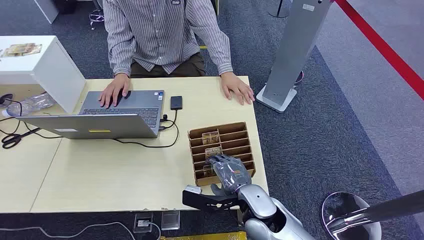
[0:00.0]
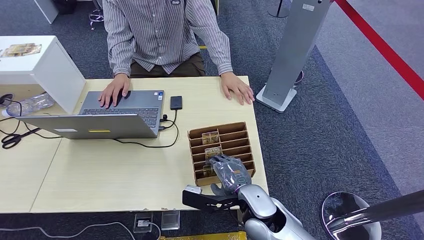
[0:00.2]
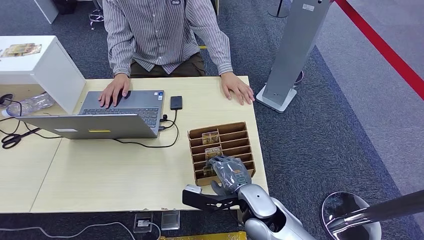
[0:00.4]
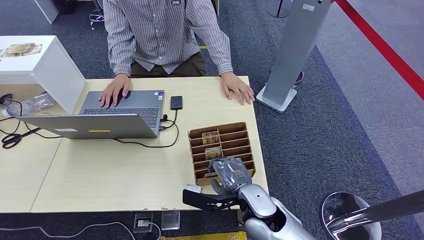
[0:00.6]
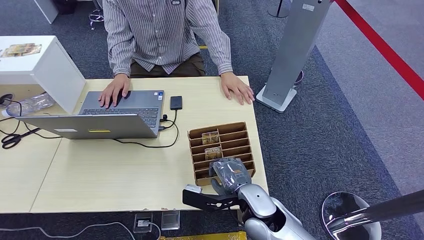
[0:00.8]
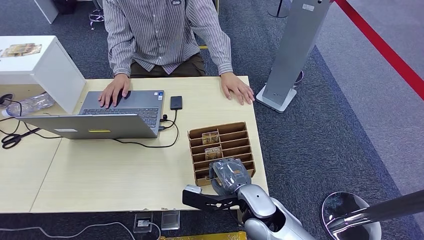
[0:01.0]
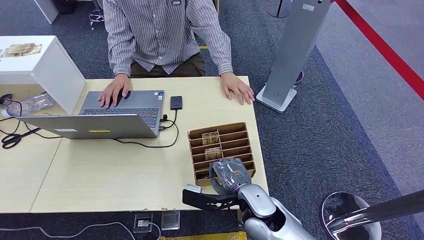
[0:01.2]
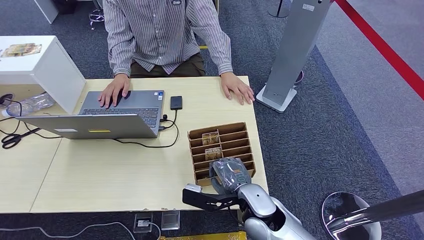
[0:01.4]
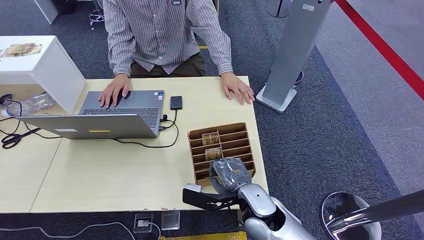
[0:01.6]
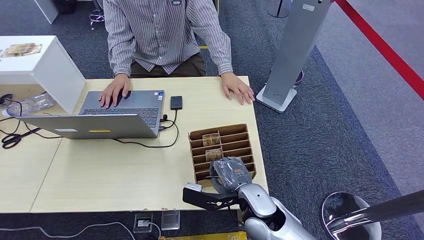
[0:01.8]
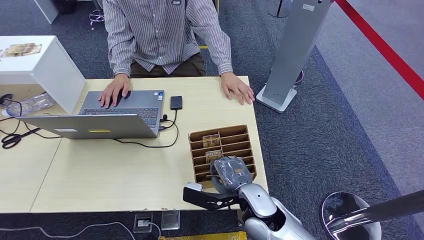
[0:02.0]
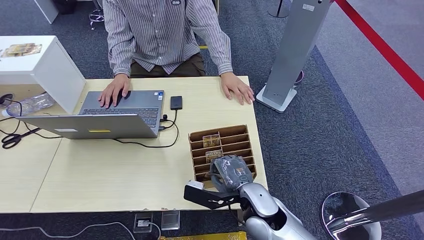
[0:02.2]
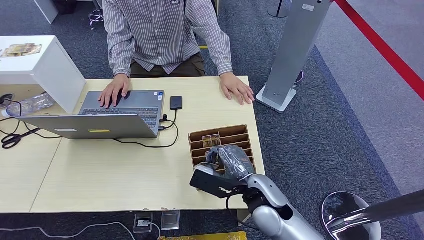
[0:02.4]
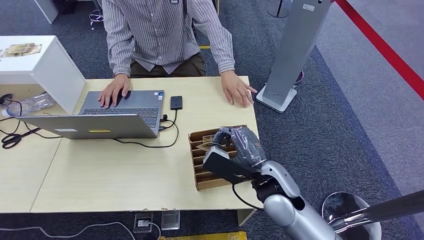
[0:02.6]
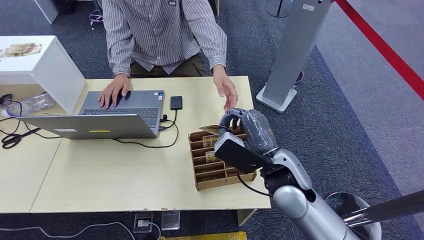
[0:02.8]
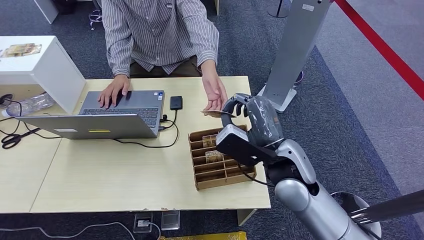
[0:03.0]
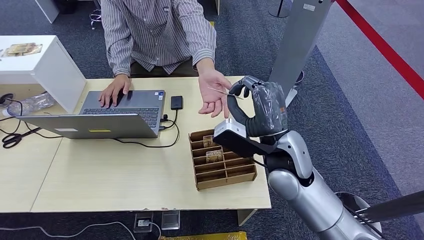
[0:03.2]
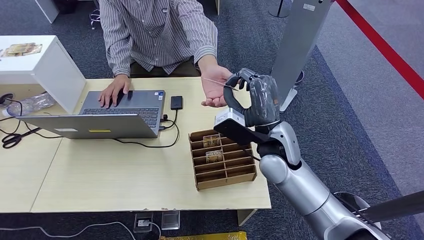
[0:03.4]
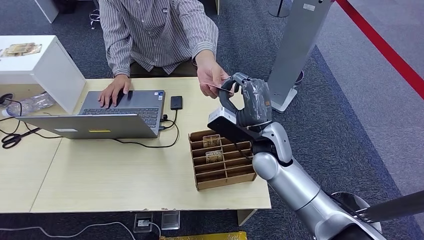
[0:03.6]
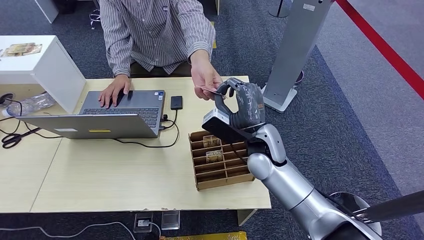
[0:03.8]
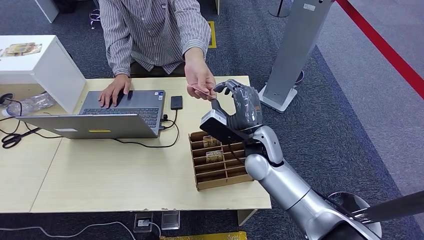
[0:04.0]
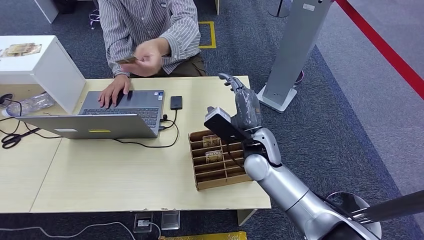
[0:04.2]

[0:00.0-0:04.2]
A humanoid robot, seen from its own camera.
Step, 0:00.0 to 0:02.6: Pick up the key card from the card box.
Step, 0:03.4 to 0:04.2: Hand the key card to the target.
0:01.4 to 0:02.8: The right hand moves upward, some 10 cm.
0:02.8 to 0:04.2: The right hand heads forward, covering approximately 10 cm.

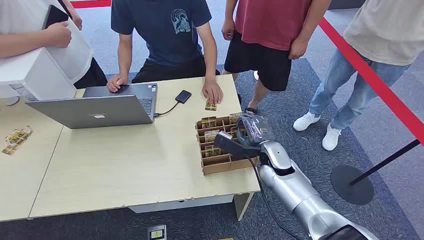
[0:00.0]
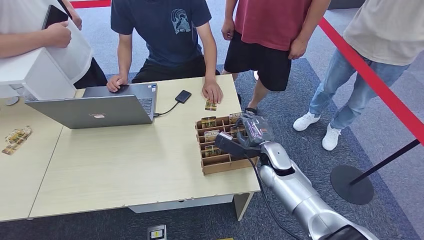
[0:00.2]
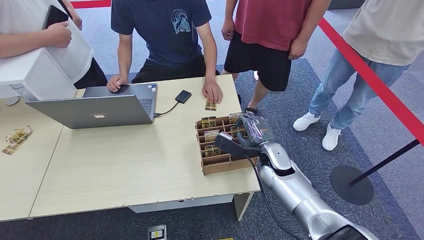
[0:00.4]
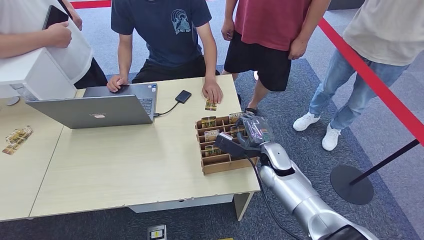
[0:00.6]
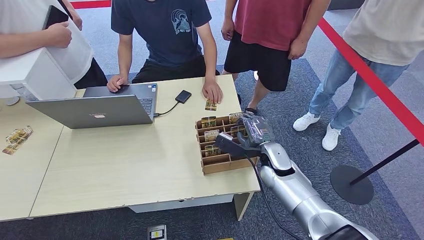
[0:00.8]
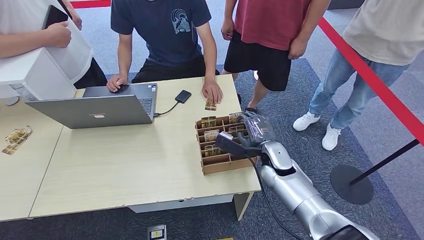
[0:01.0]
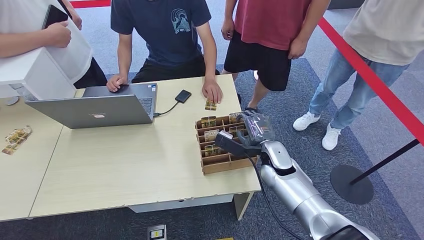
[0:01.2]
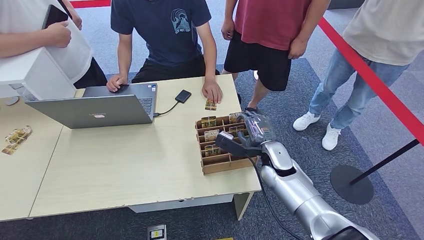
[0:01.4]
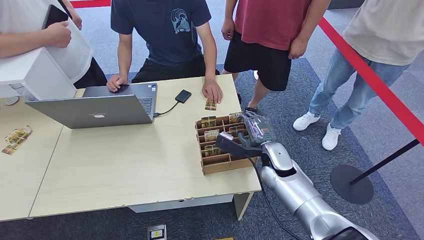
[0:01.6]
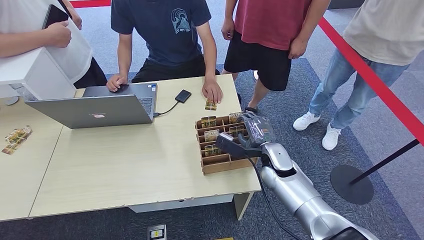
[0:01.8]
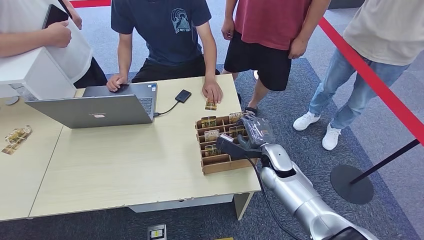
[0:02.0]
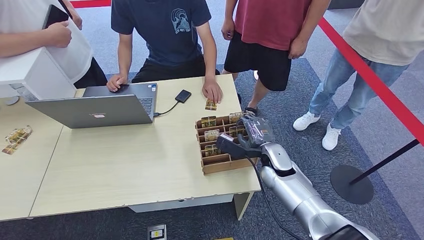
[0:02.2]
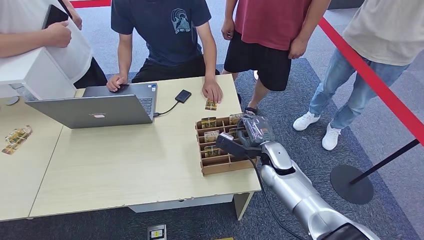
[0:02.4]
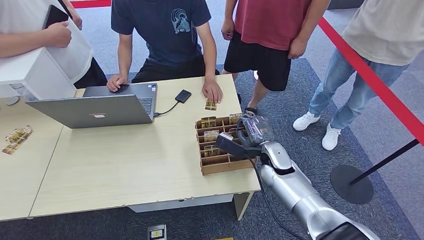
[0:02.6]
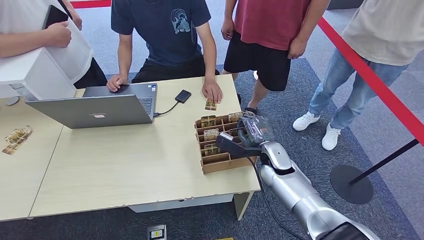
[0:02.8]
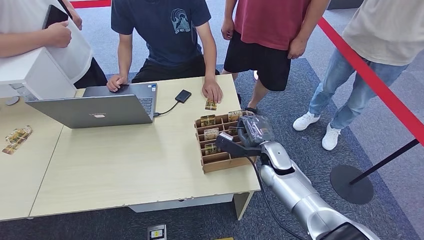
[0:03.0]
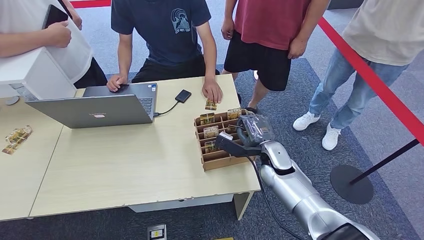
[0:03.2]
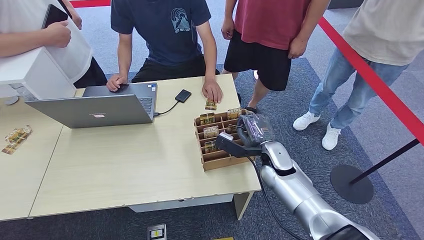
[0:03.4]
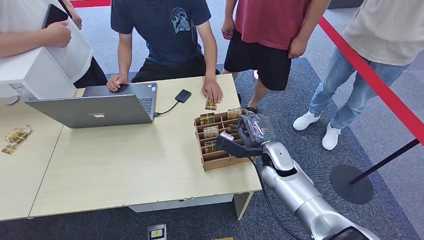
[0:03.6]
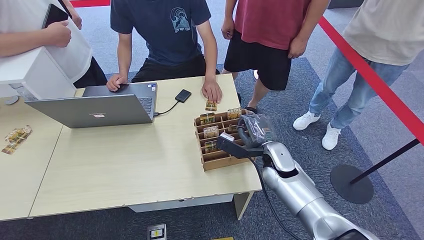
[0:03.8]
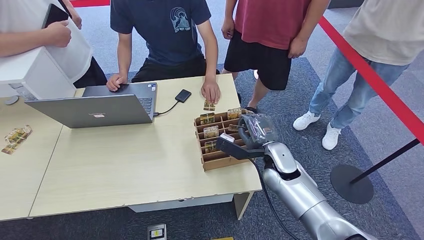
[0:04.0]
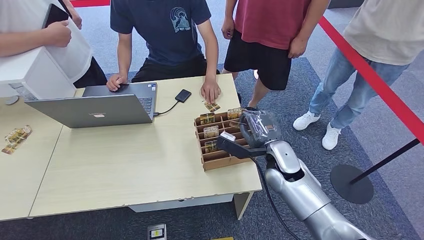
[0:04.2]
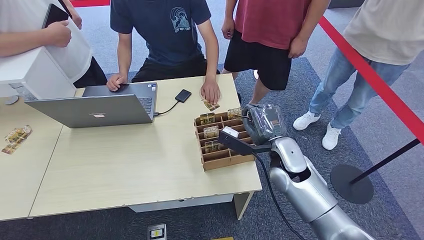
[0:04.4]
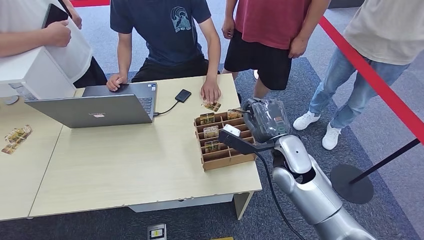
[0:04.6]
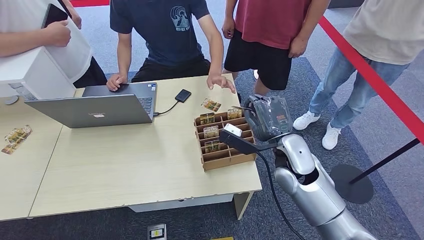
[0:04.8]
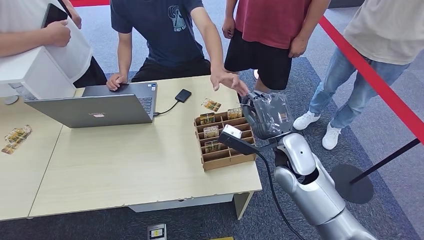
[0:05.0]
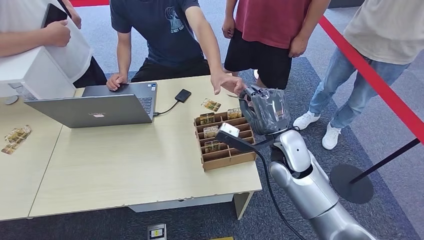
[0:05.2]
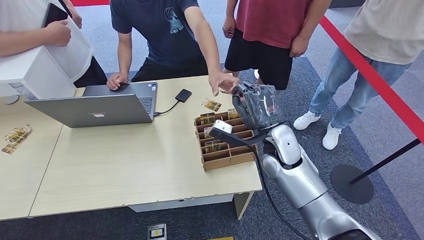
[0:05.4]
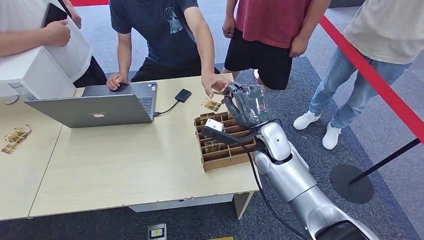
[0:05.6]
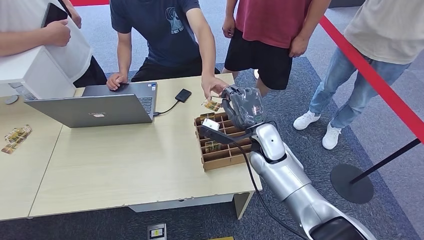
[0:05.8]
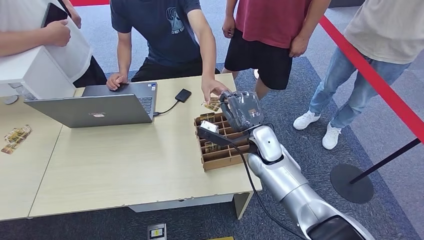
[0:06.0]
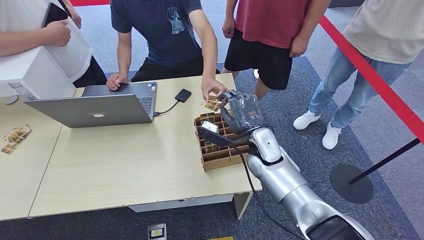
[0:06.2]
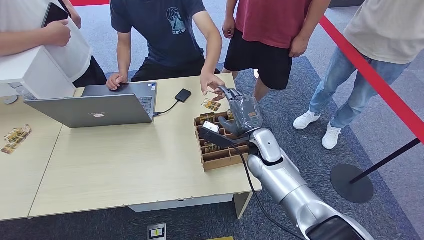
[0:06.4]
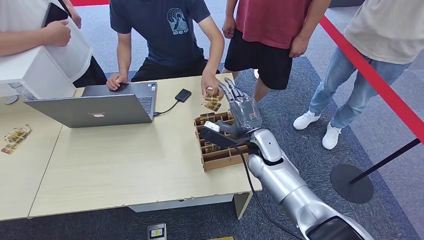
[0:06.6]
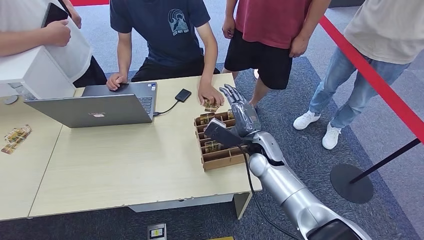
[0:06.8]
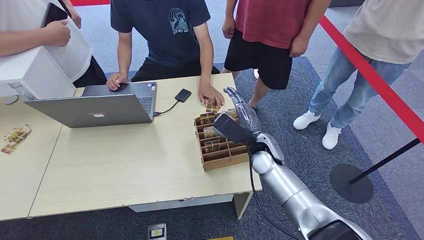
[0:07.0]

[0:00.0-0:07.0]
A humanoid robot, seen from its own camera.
Step, 0:00.0 to 0:04.6: Pick up the key card from the card box.
Step, 0:04.8 to 0:07.0: Hand the key card to the target.
0:01.4 to 0:02.8: The two hands keep their place.
0:02.8 to 0:04.2: The hands move only a little.
0:04.2 to 0:05.6: The right hand heads upward, covering approximately 5 cm.
0:05.6 to 0:07.0: The right hand heads downward, covering some 5 cm.

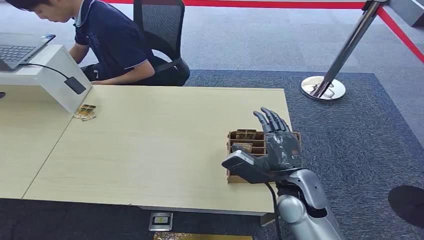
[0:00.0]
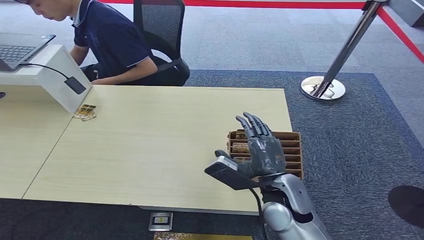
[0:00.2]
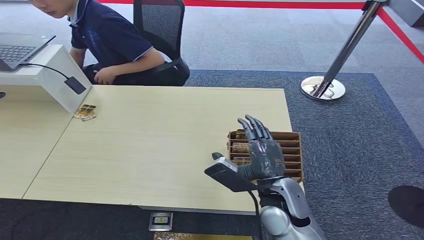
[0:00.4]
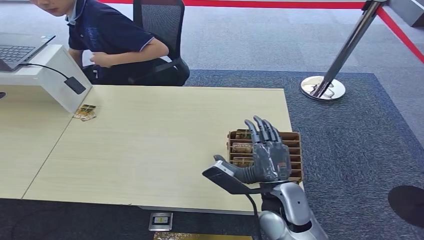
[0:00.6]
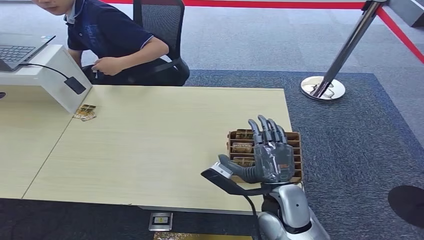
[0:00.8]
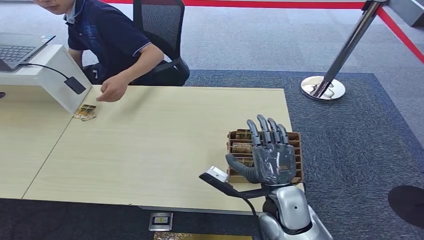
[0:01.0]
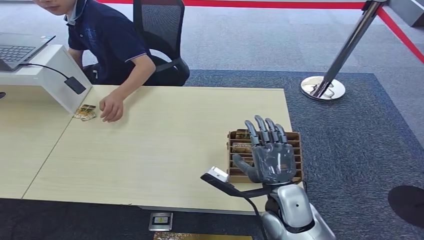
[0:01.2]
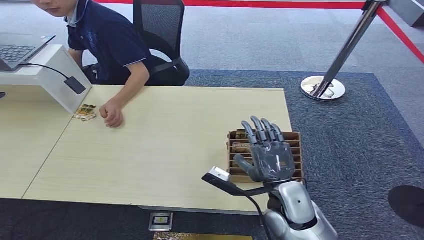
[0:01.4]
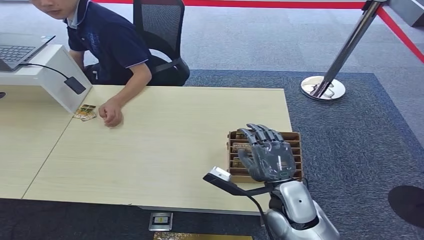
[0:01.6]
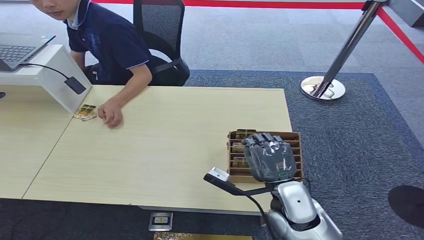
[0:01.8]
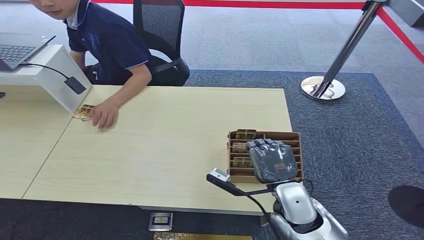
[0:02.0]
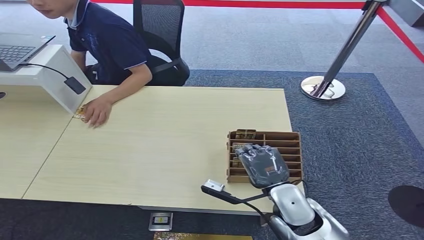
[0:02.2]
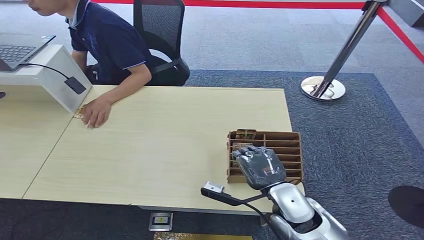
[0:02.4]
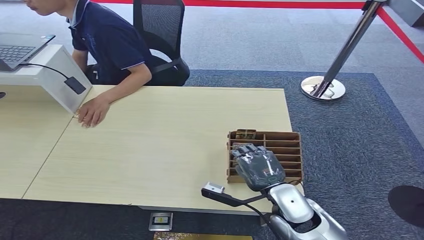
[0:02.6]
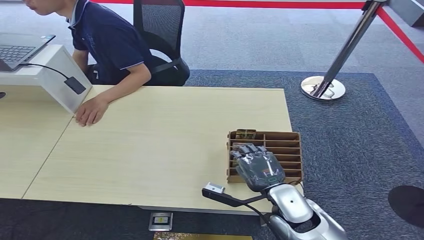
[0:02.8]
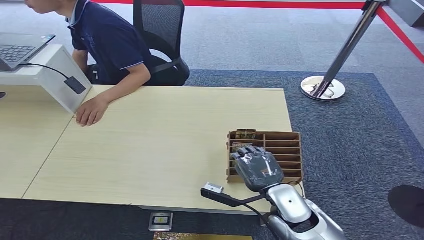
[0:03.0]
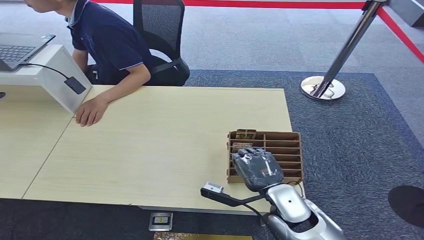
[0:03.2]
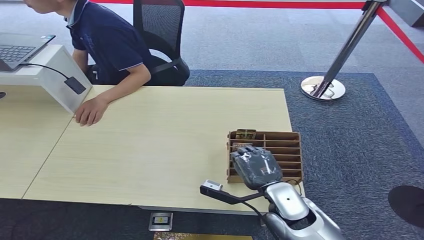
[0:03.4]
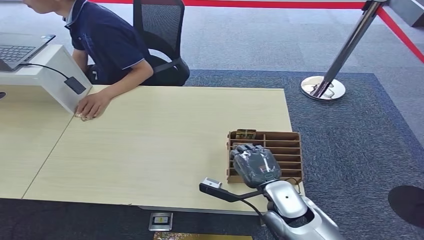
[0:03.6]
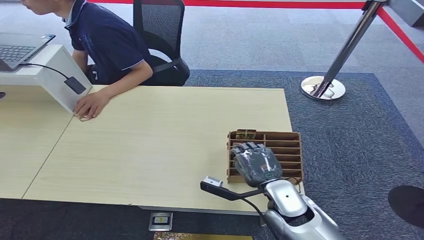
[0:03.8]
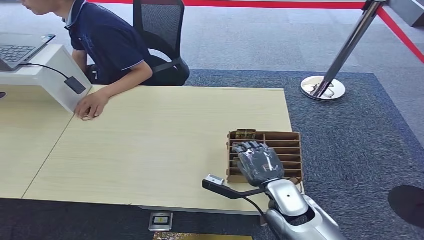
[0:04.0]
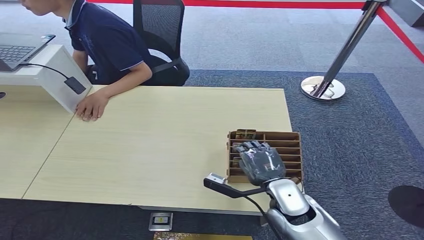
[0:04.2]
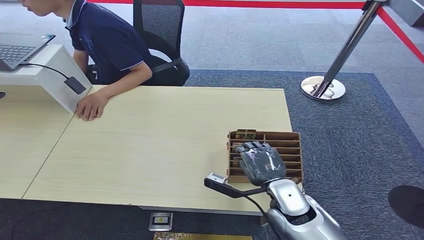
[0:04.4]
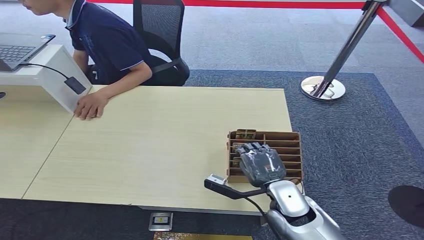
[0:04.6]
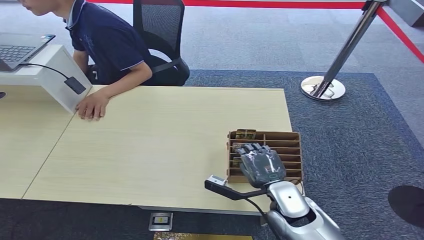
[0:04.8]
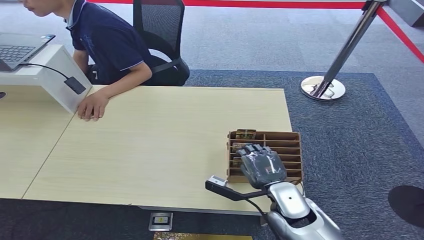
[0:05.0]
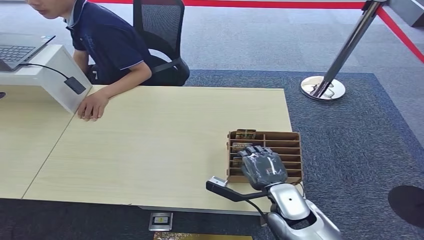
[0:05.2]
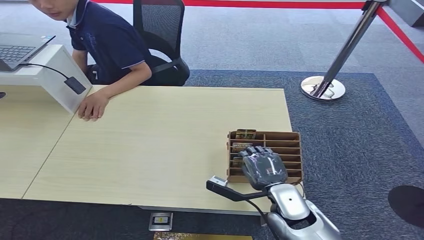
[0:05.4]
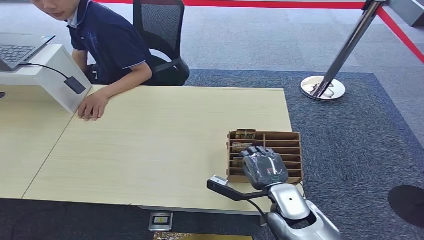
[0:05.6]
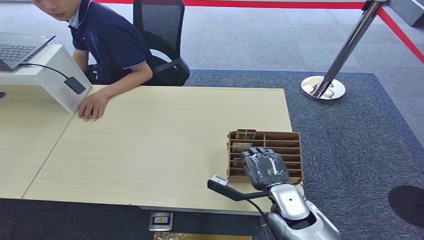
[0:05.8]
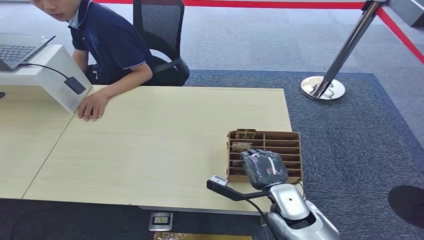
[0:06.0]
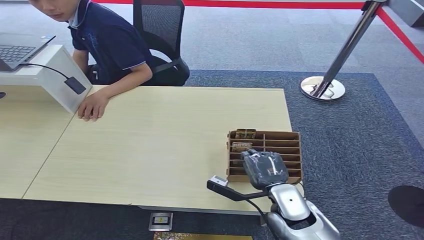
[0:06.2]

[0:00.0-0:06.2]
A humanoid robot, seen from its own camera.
0:03.2 to 0:04.6: The hands move only a little.
0:04.6 to 0:06.2: Both hands stay about where they are.
